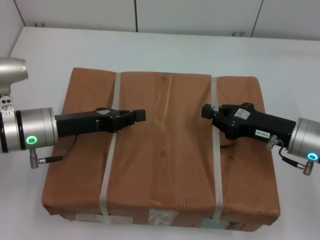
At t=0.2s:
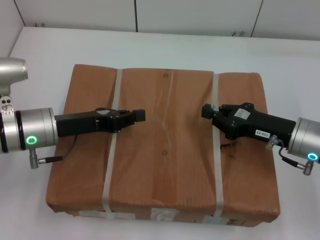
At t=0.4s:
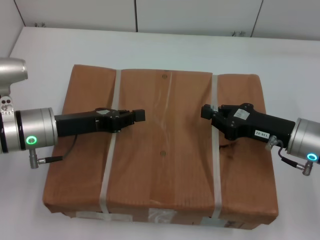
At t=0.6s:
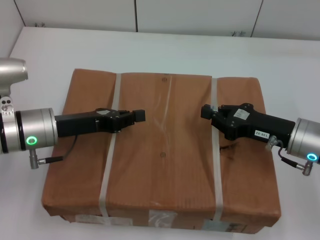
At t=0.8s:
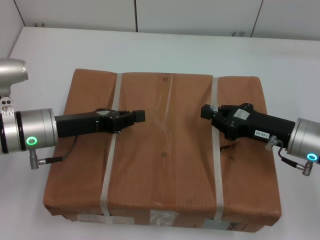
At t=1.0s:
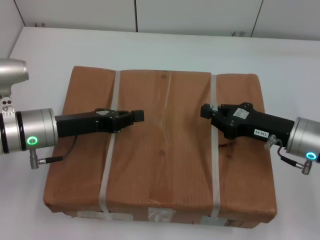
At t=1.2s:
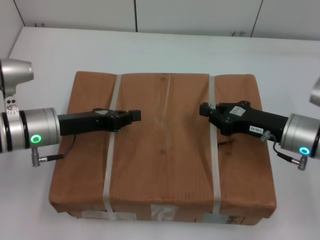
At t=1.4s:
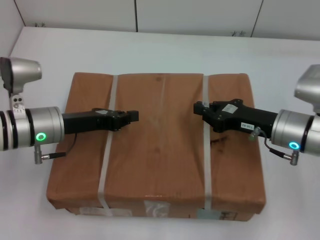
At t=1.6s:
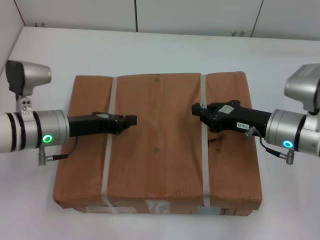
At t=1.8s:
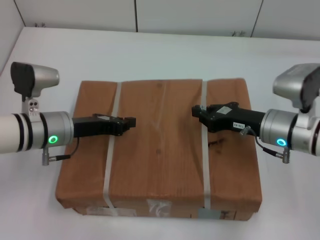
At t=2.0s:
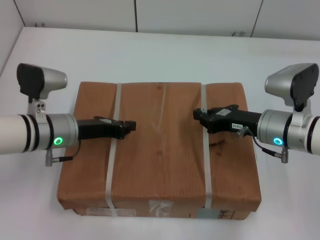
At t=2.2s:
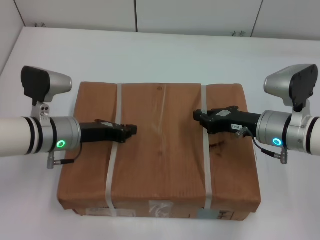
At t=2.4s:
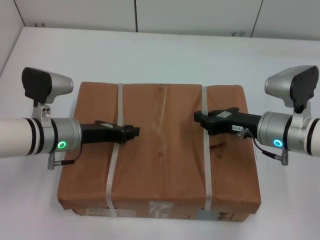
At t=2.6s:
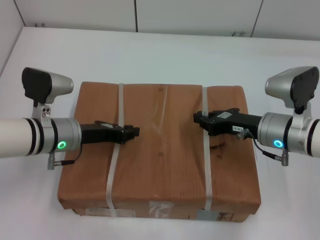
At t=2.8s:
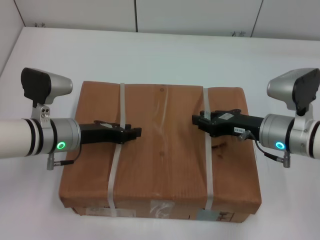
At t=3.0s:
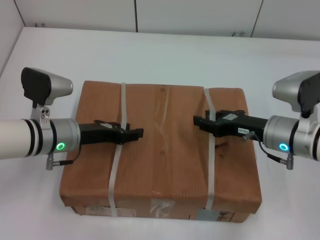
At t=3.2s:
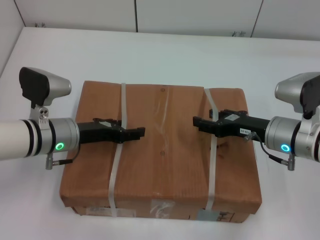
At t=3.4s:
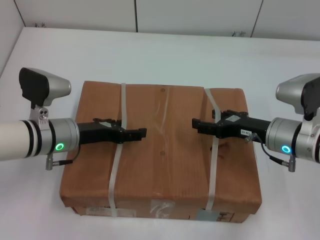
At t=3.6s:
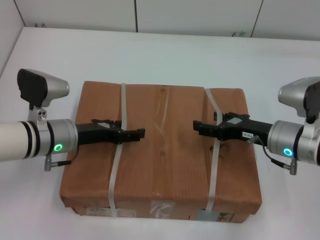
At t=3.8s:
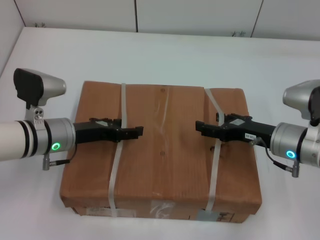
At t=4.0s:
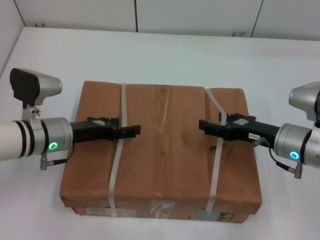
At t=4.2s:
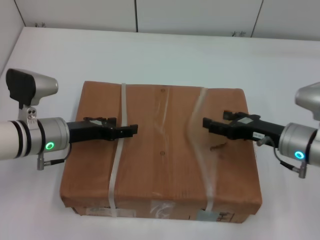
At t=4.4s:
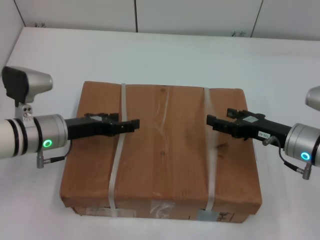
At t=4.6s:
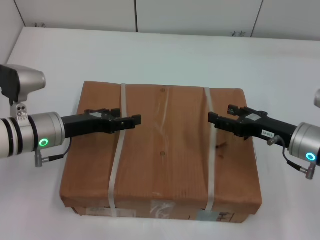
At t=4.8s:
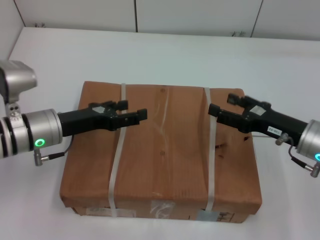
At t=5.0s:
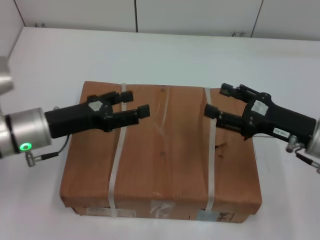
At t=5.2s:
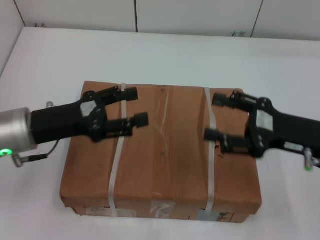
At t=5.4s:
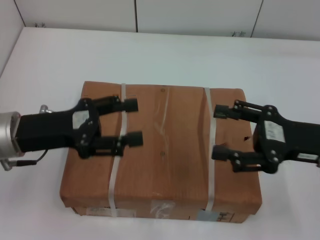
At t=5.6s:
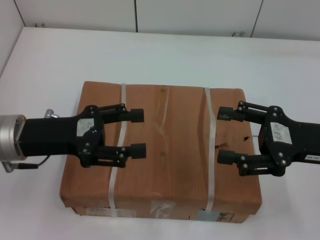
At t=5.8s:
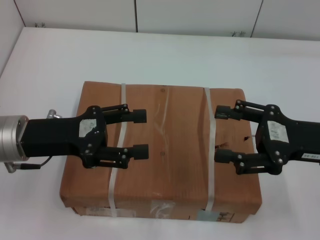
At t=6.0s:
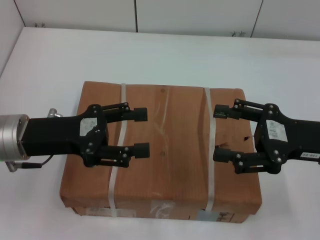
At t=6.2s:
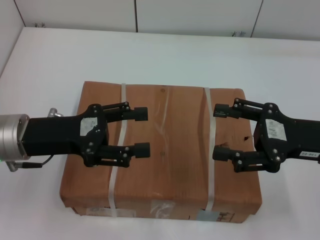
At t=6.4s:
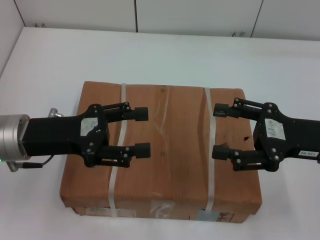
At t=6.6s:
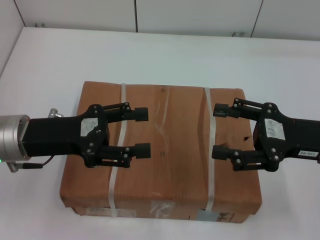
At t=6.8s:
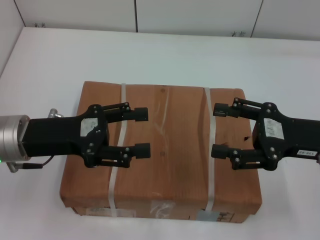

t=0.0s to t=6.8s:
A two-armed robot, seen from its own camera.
Task of the whole recording: place the box on the table with both arms.
Step, t=0.0s to t=2.4s: Place the box on the table with left gripper.
Step, t=0.0s to t=2.4s: Place the box on the table with right gripper.
Step, t=2.6s to t=4.2s: Loosen the box on the table with left gripper.
Step, t=2.6s to t=4.2s: Loosen the box on the table with right gripper.
t=2.8s to t=4.0s: The right gripper opens; the left gripper opens its fingers.
t=4.0s to t=5.4s: The right gripper travels upward by approximately 10 cm; the left gripper travels upward and backward by some 10 cm.
t=5.4s to t=6.8s: Both grippers stay put.
